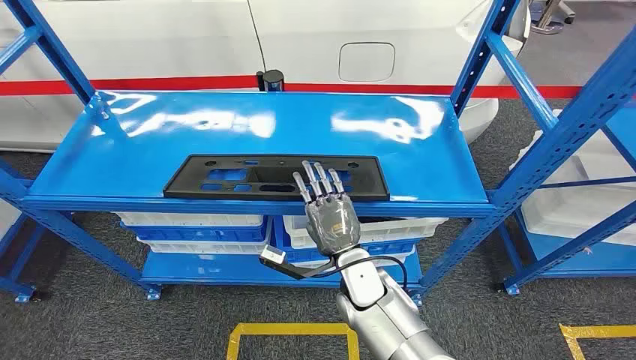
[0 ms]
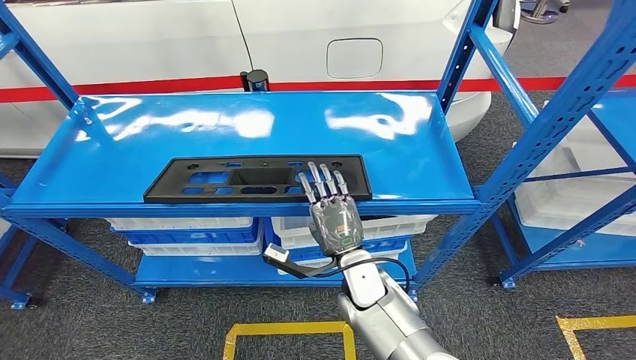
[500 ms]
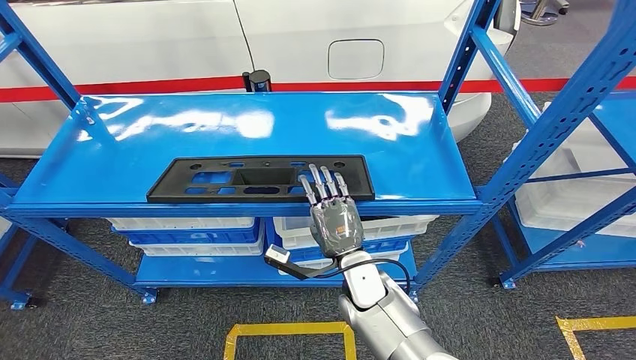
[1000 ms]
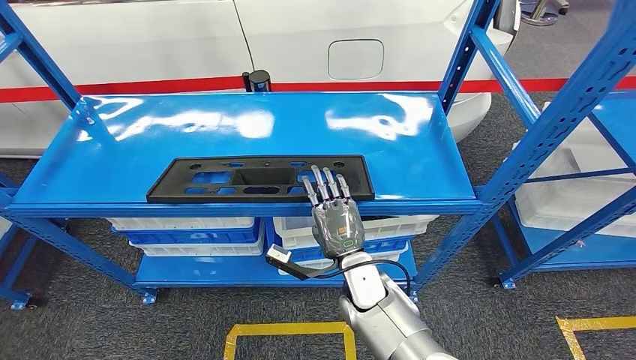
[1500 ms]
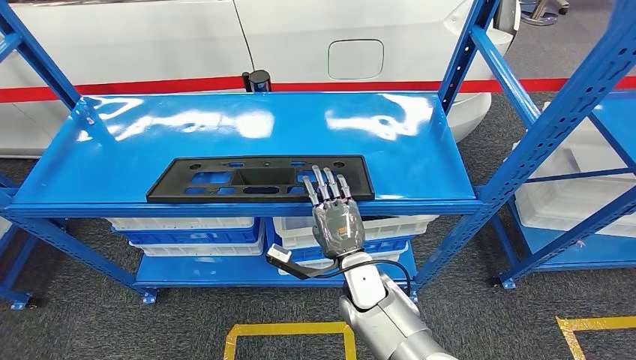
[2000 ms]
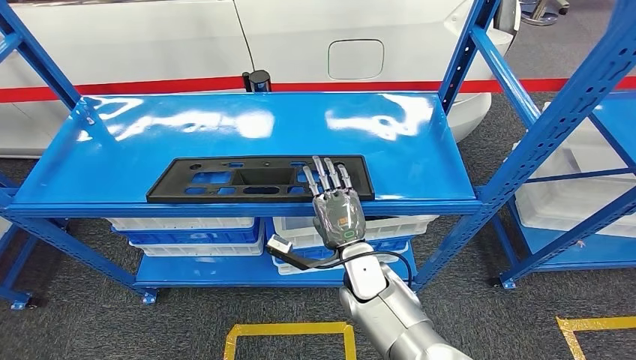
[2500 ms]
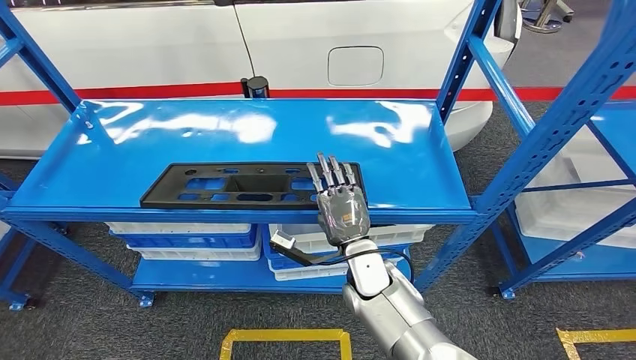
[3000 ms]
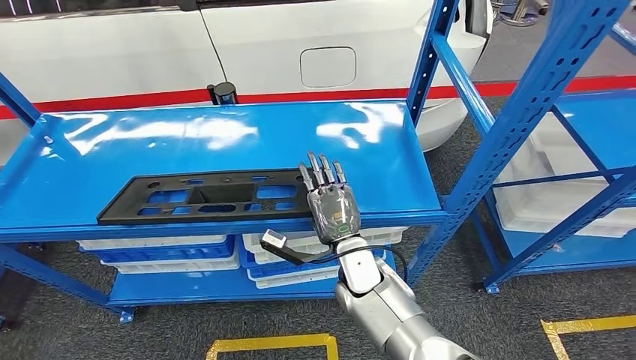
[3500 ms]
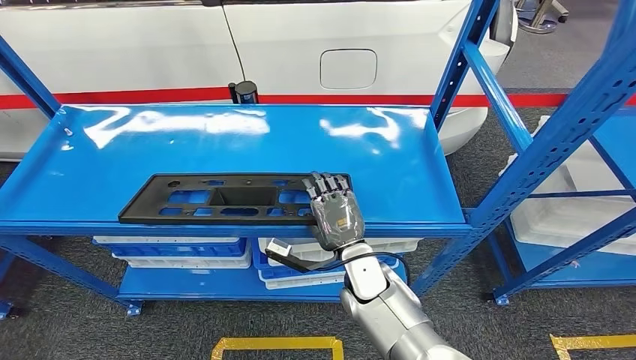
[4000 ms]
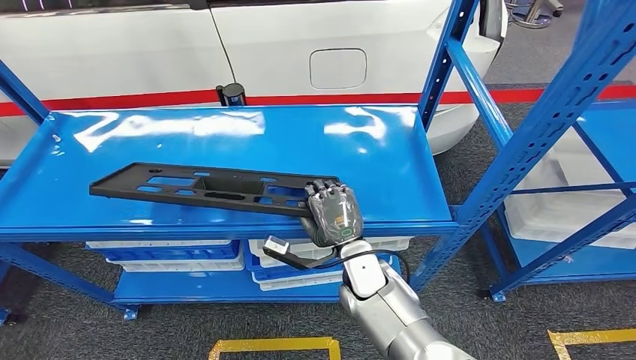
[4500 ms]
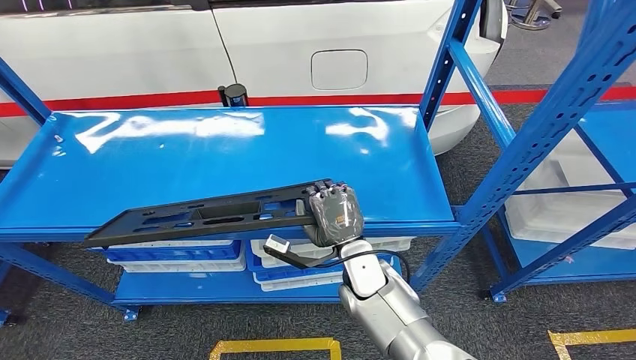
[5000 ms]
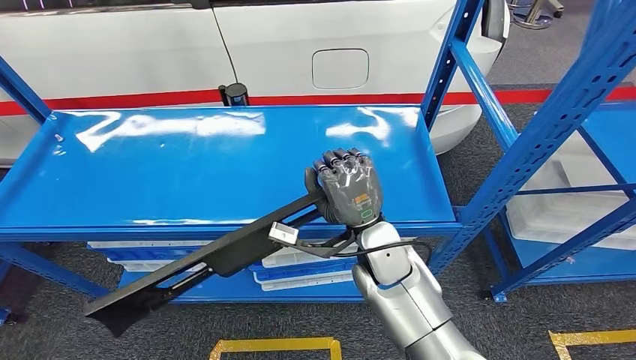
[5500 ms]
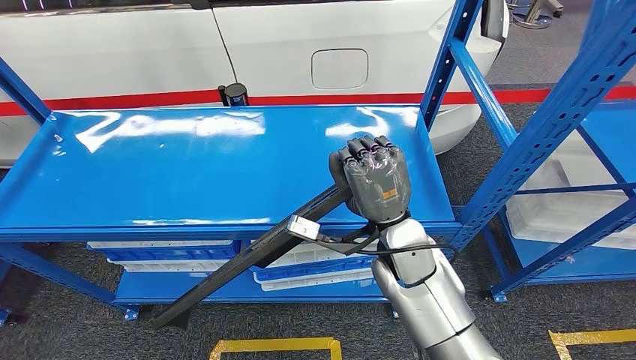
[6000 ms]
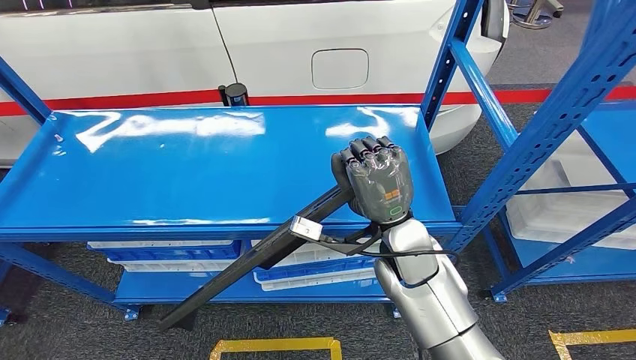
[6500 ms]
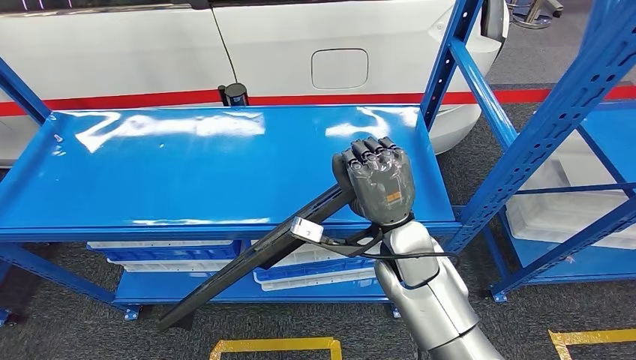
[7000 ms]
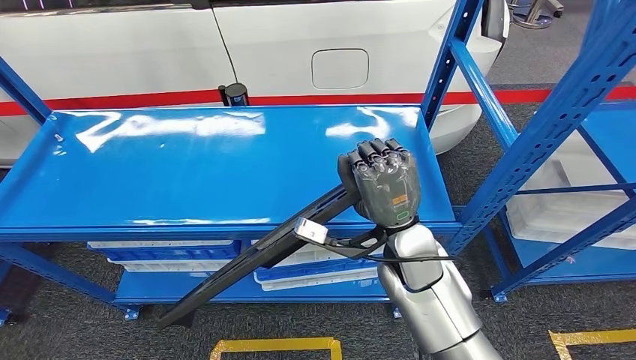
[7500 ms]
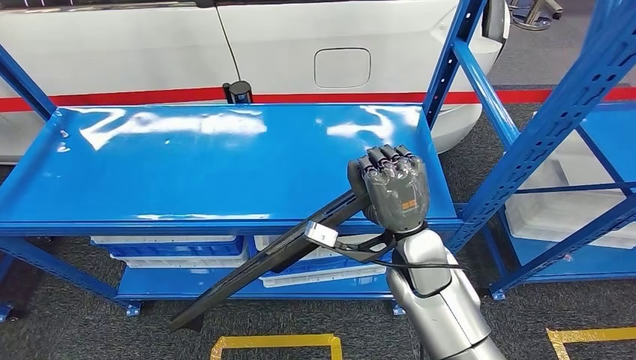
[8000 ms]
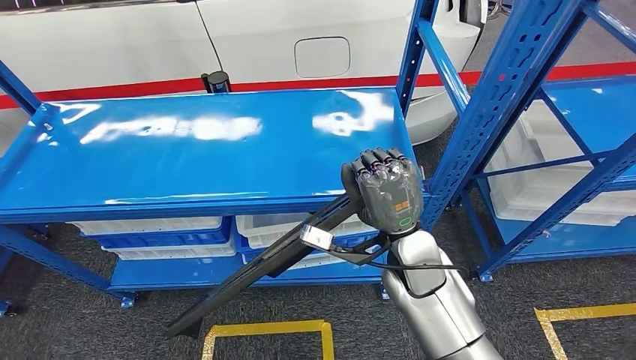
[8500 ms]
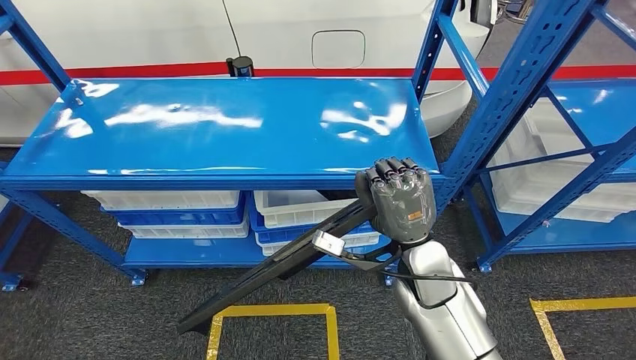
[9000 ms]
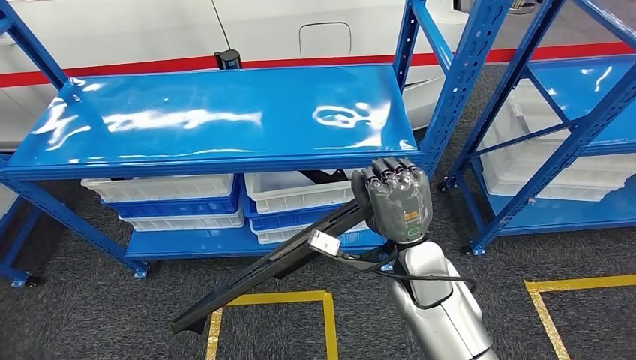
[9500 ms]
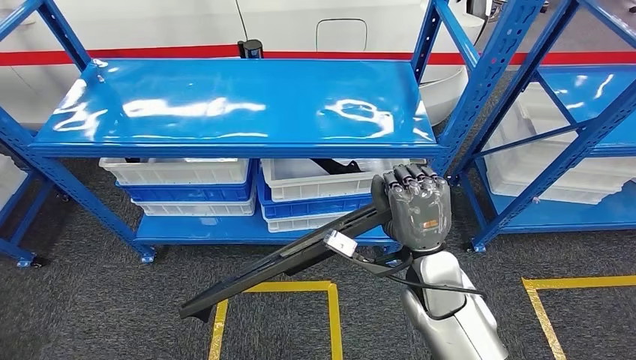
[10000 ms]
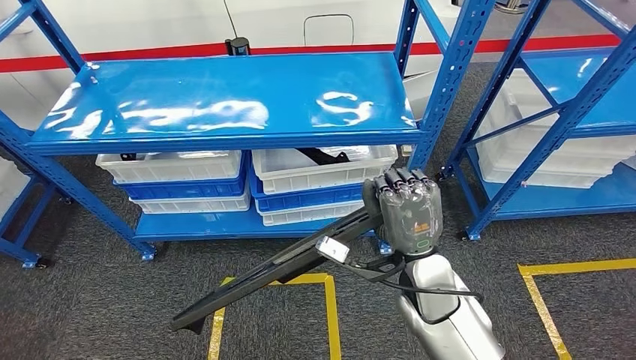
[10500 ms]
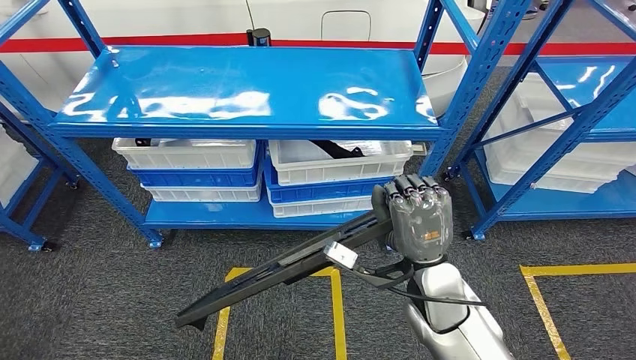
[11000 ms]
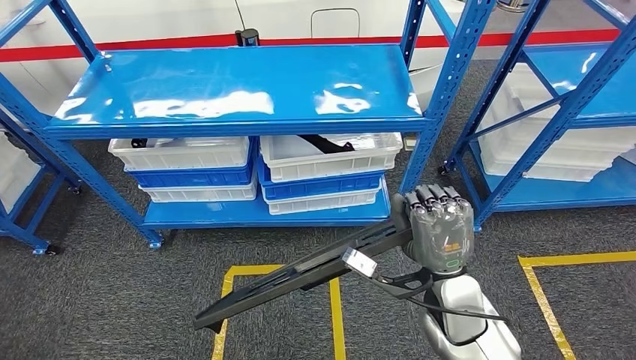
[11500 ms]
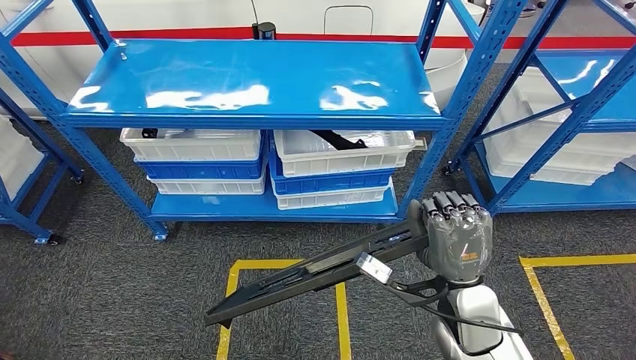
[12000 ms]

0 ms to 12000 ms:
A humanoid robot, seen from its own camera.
Step, 0 ms to 7500 ms: Pick up the large material from the shelf.

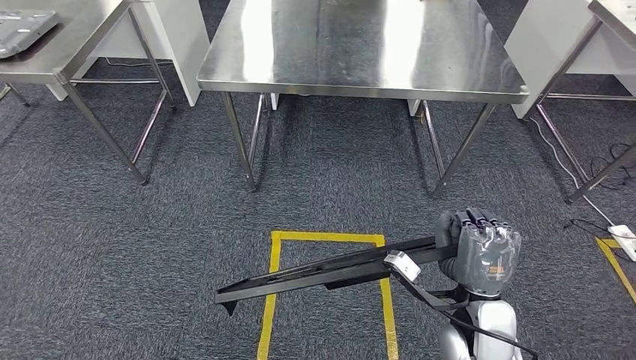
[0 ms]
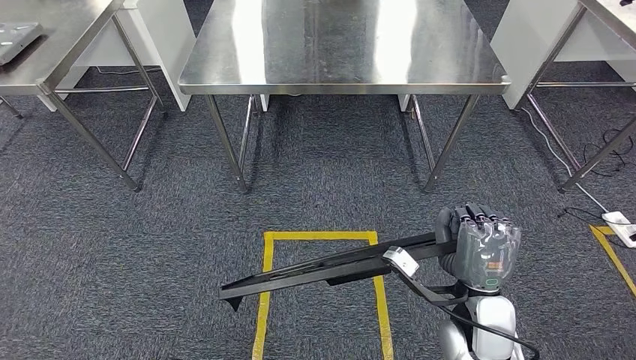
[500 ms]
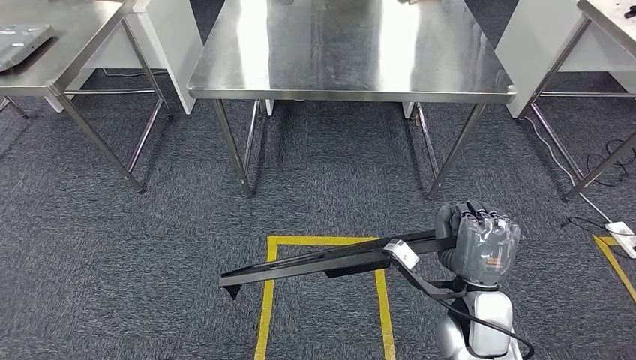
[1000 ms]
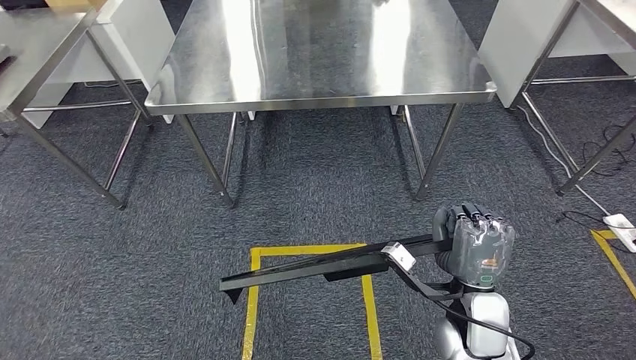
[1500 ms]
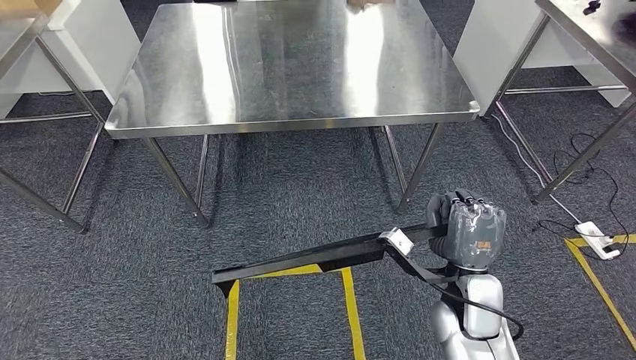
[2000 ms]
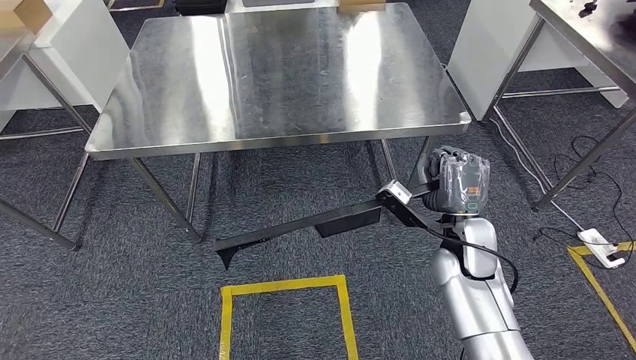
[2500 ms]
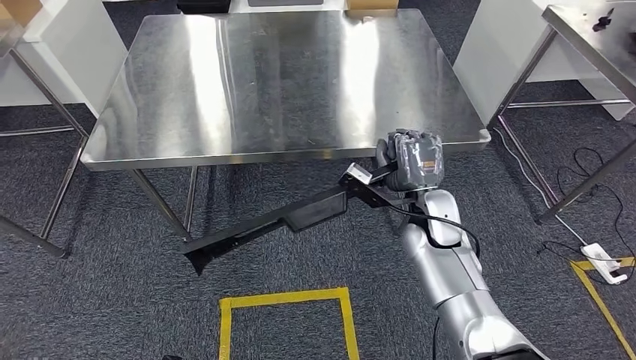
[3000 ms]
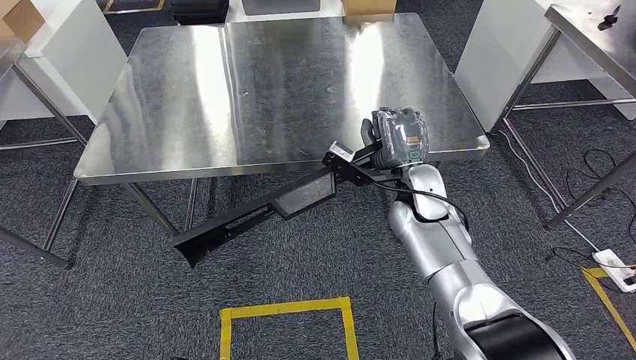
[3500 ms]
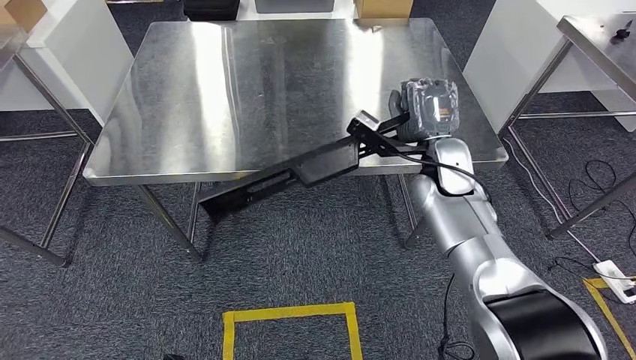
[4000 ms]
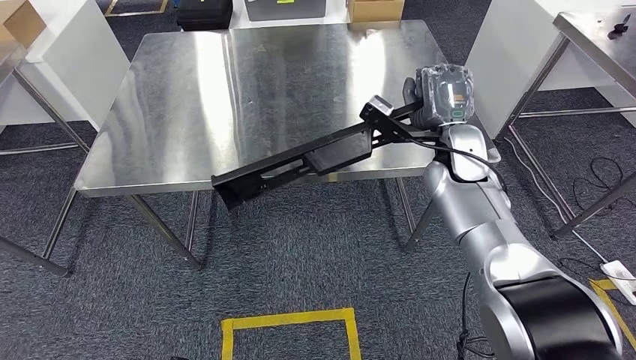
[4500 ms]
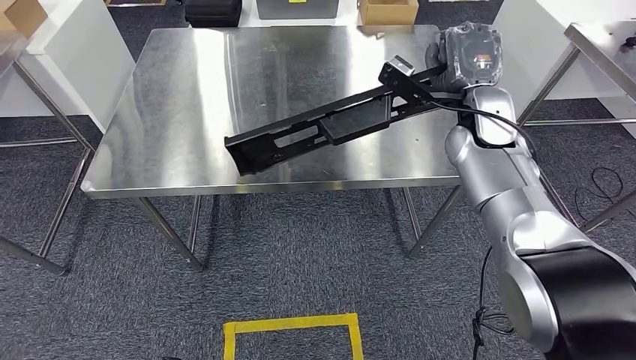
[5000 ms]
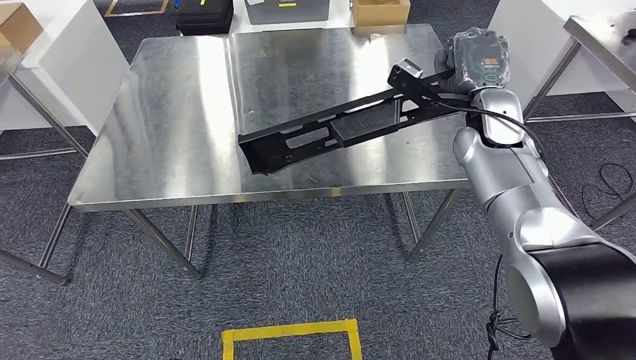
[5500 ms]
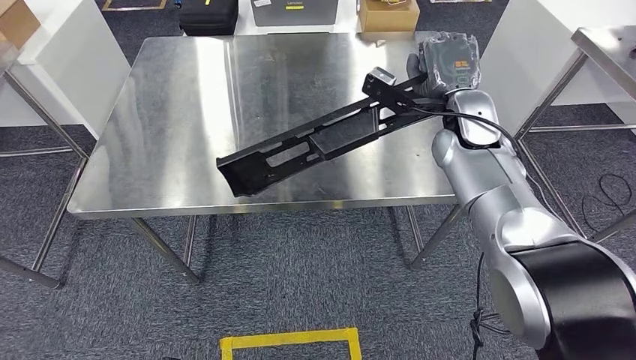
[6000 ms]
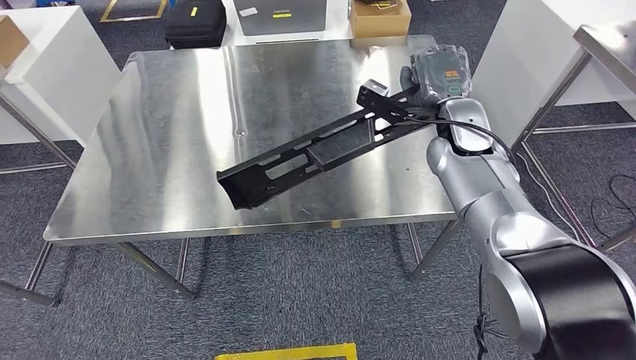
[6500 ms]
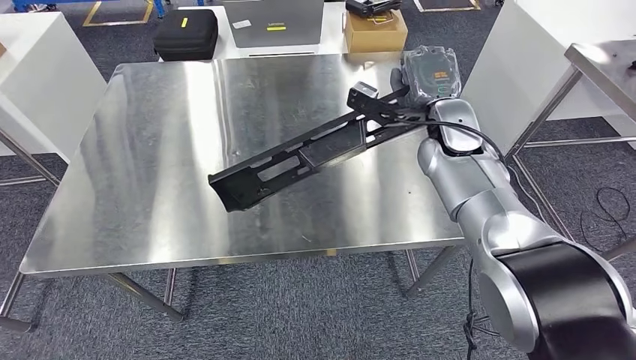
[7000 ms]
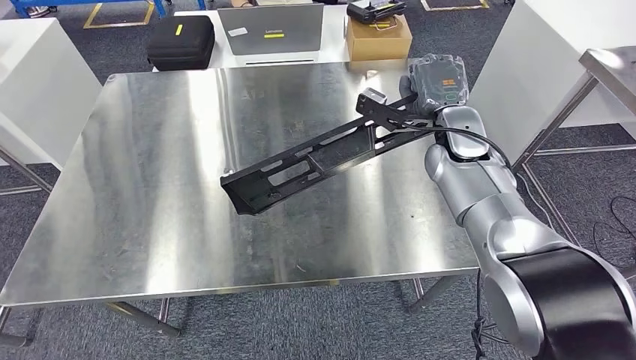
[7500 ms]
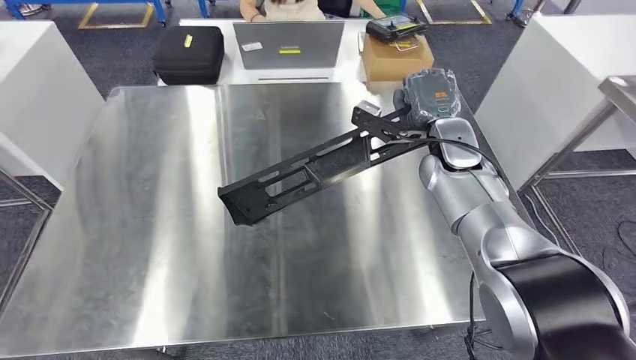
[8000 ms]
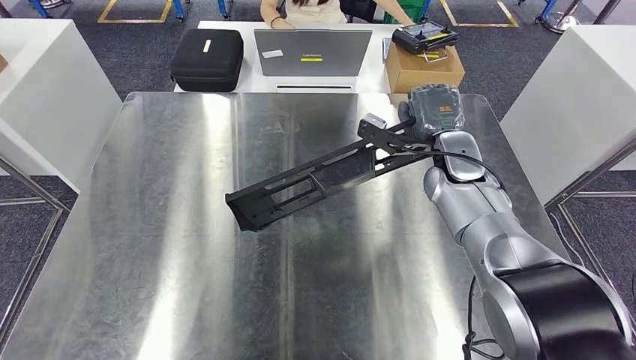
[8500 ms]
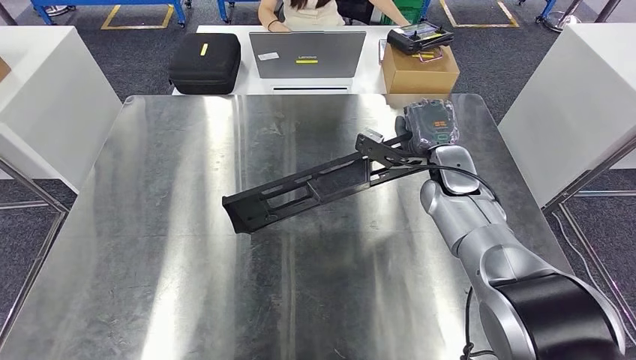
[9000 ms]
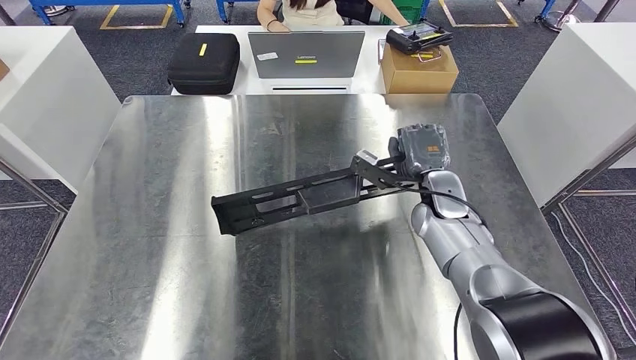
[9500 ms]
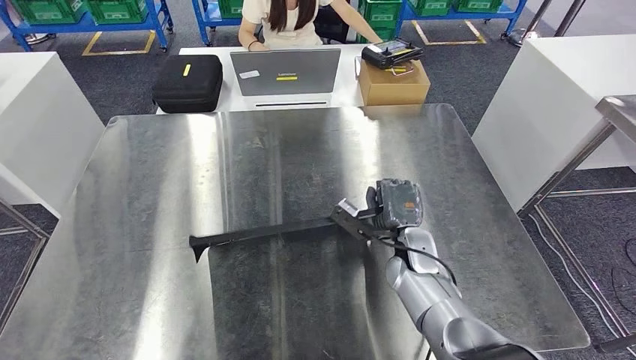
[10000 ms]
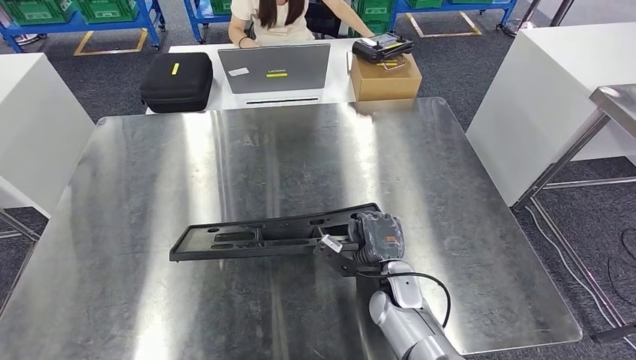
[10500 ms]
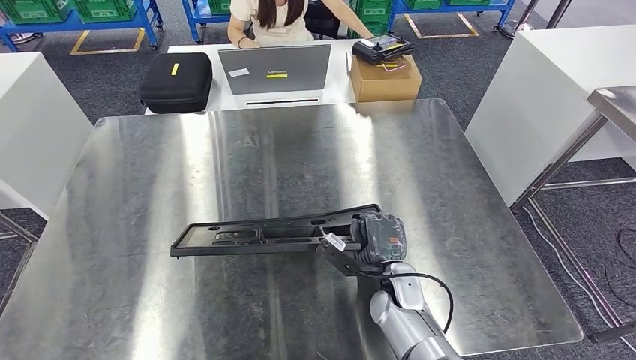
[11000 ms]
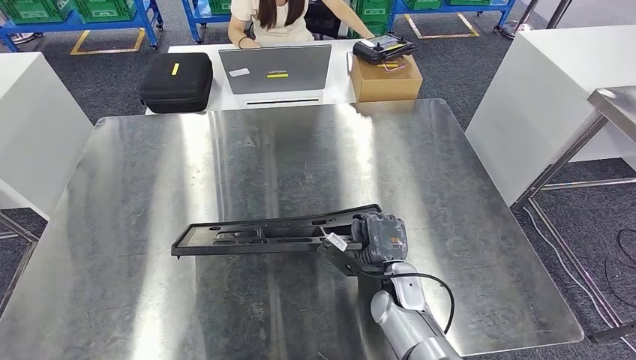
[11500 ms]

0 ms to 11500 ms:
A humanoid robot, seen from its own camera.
Step, 0 ms to 7000 ms: Move the large material to the workbench.
